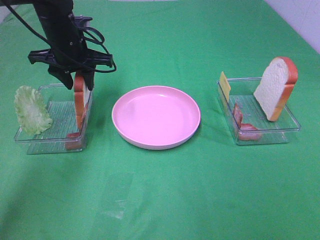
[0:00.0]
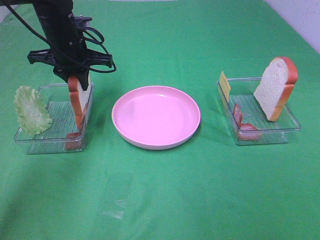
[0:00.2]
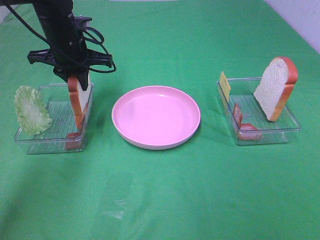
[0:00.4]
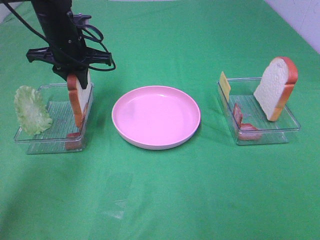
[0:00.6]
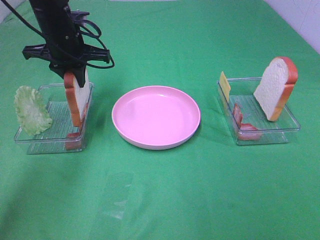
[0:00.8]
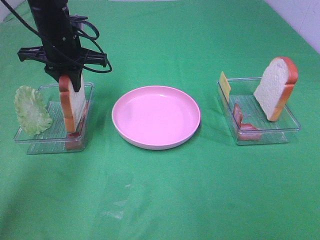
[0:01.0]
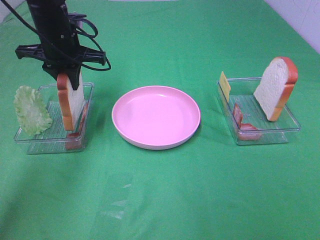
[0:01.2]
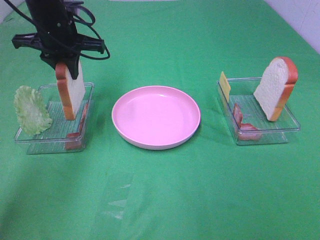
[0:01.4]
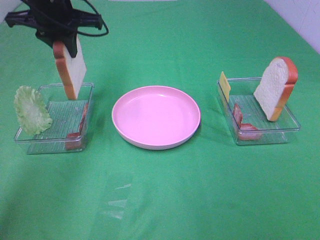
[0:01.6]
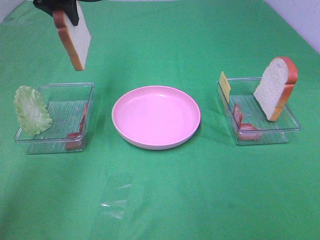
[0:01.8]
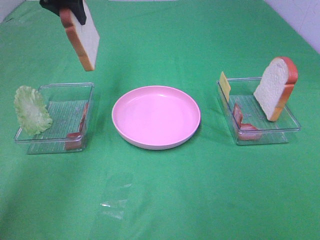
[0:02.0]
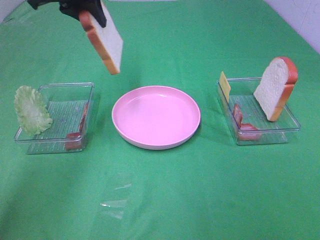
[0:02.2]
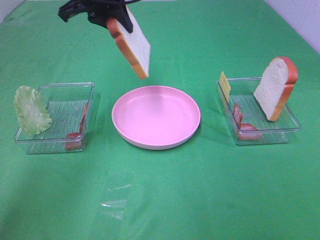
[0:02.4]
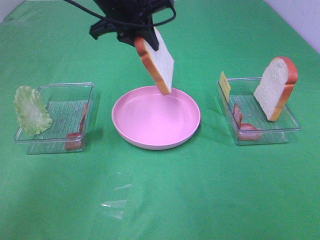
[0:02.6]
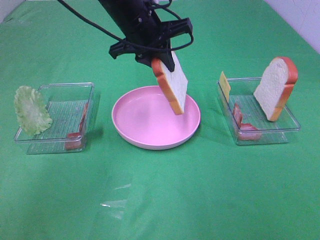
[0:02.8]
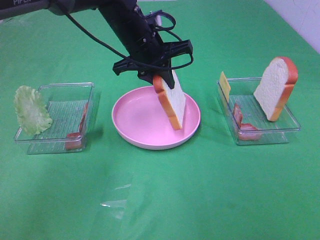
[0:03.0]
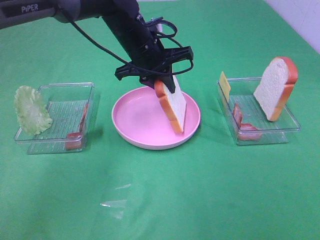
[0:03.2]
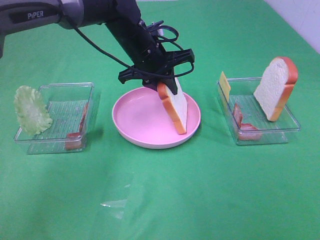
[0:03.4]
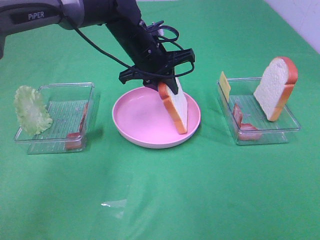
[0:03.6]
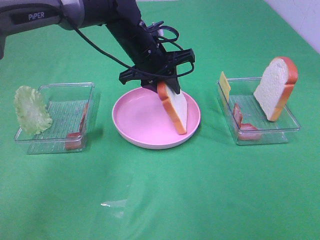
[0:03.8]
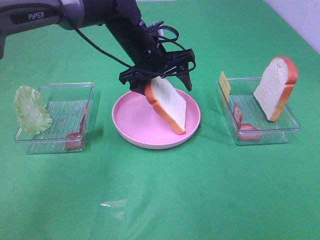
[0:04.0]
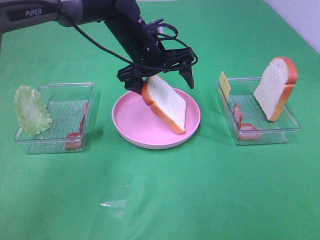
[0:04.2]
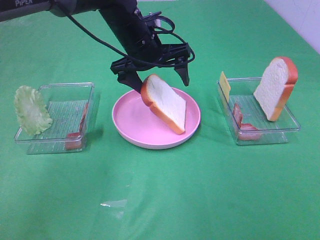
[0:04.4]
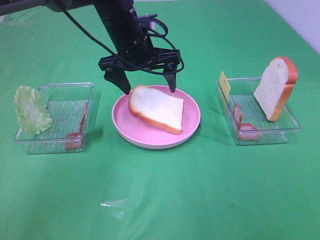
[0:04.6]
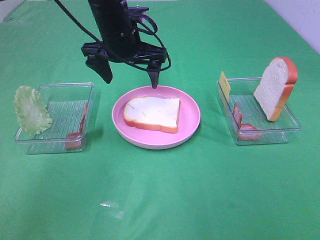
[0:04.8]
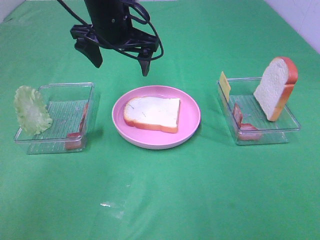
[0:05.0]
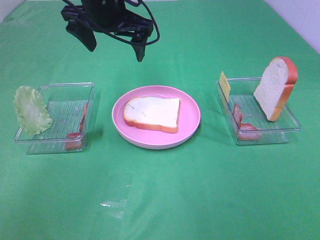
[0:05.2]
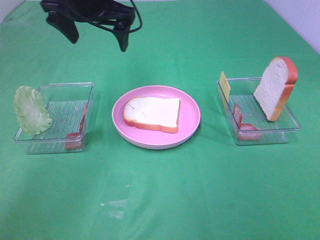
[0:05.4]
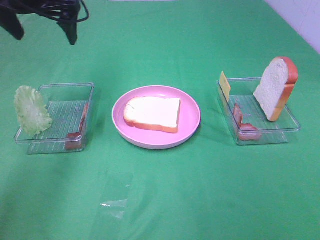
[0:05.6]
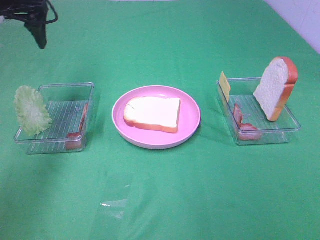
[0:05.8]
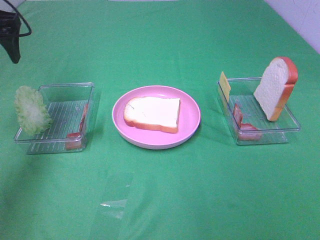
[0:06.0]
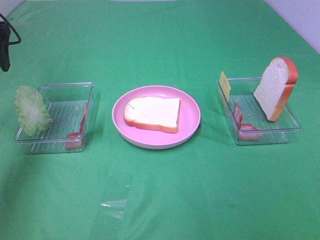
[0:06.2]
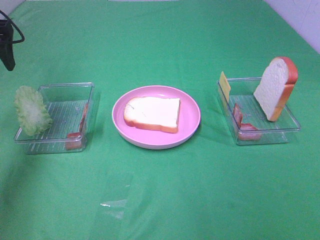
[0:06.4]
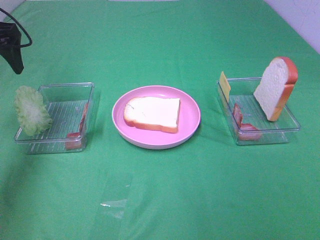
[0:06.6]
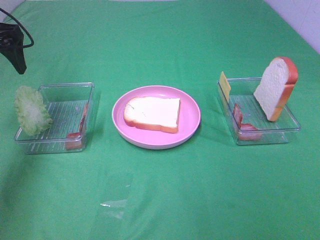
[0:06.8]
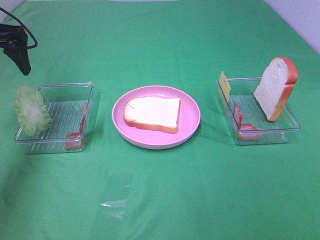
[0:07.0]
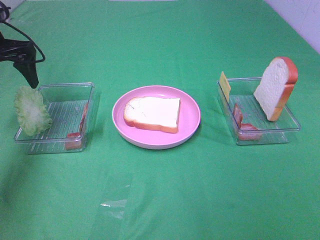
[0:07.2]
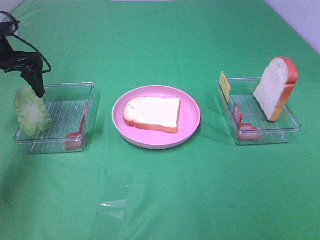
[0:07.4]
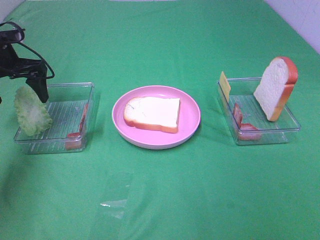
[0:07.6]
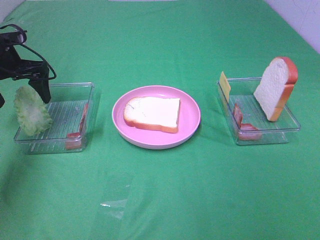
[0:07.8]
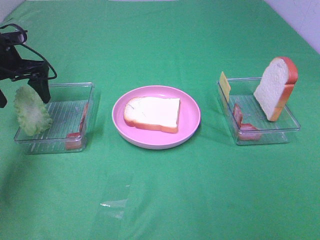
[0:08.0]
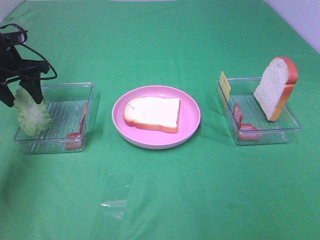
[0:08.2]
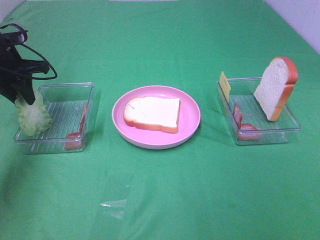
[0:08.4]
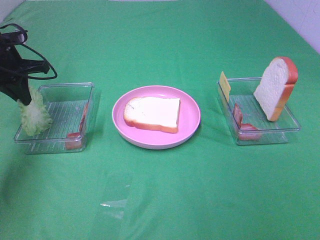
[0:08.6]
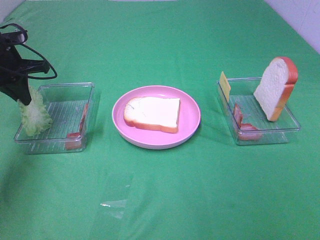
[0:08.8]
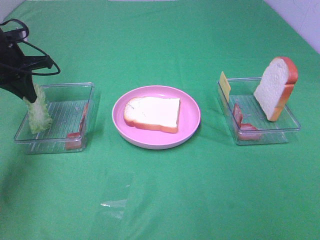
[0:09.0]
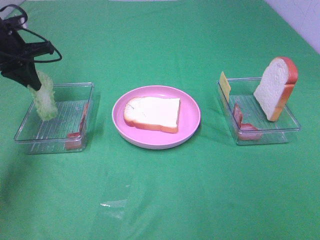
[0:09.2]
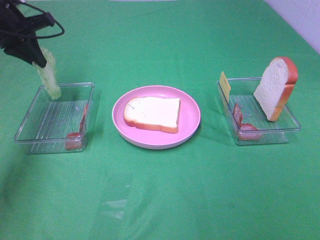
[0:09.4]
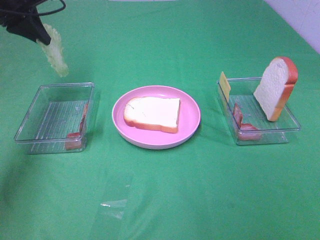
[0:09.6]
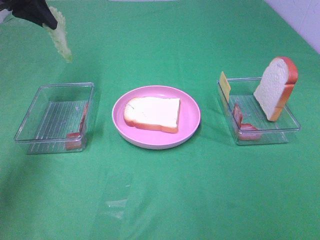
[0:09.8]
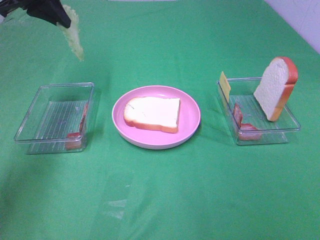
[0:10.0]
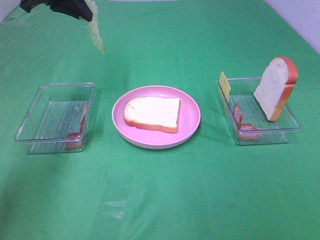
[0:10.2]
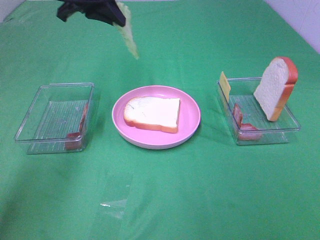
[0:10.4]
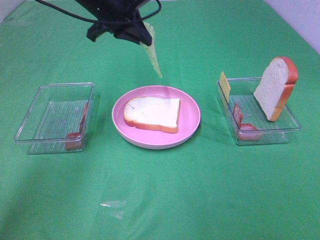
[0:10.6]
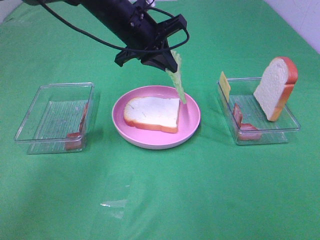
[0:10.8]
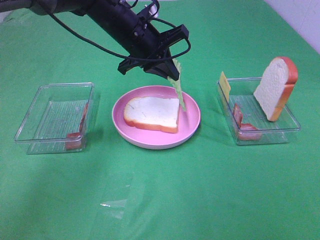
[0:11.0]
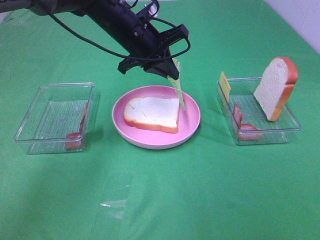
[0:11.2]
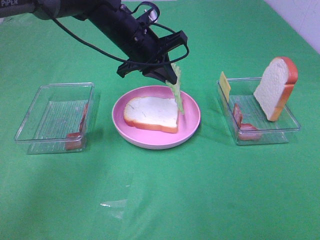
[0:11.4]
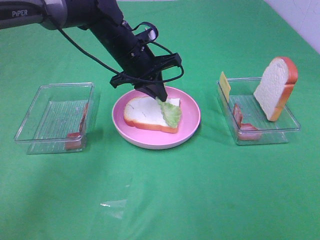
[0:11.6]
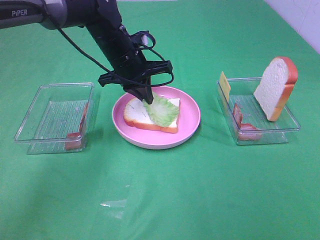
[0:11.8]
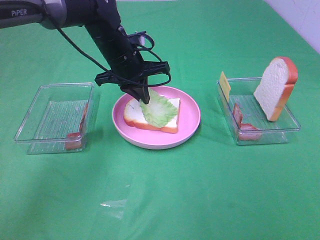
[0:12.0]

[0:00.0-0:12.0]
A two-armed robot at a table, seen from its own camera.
Task of the whole recording: Make sandwiches.
Step, 0:00.4 to 0:04.6: Left hand:place the bread slice on the plate.
Step, 0:04.8 to 0:08.6: Left hand:grab the lettuce slice.
0:00.0 to 0:01.6: The left gripper goes approximately 10 cm upward.
0:01.6 to 0:03.0: The left gripper is displaced to the right and downward by about 15 cm.
0:03.0 to 0:04.4: The left gripper opens up.
0:04.4 to 0:06.0: The left gripper is displaced to the left by roughly 25 cm.
0:06.0 to 0:07.6: The left gripper goes roughly 10 cm downward.
0:07.6 to 0:09.0: The left gripper closes its fingers.
0:09.0 to 0:10.4: The left gripper is displaced to the right and upward by approximately 20 cm.
0:10.4 to 0:12.0: The left gripper travels downward and to the right by roughly 15 cm.

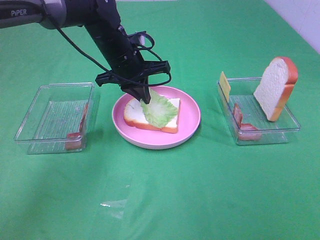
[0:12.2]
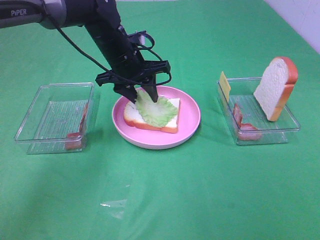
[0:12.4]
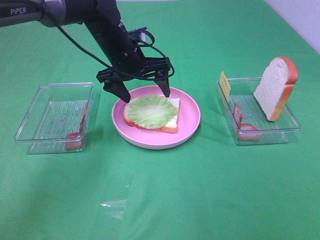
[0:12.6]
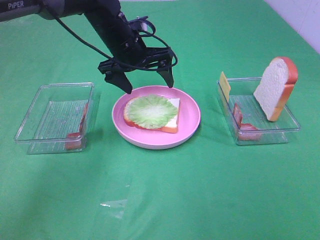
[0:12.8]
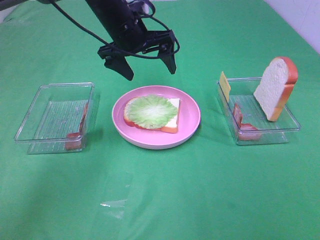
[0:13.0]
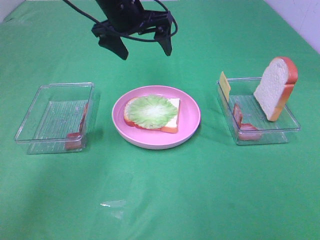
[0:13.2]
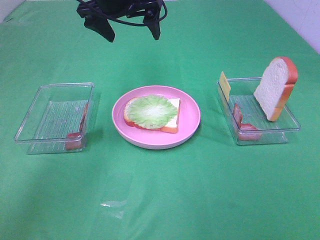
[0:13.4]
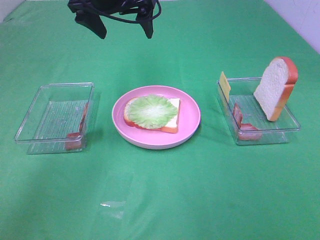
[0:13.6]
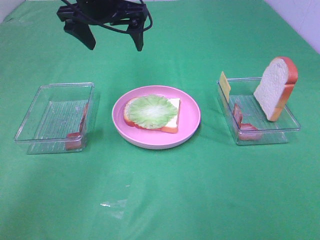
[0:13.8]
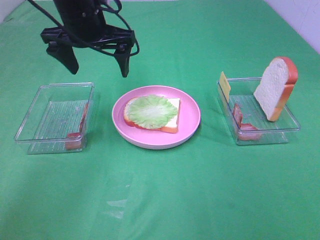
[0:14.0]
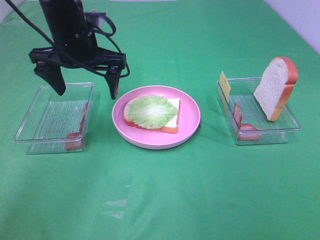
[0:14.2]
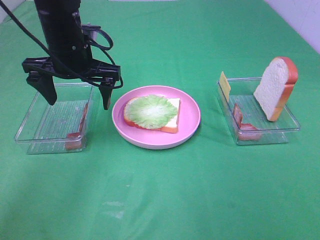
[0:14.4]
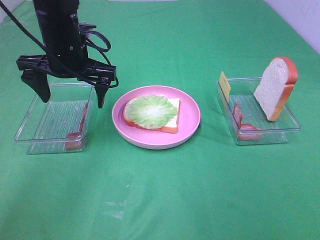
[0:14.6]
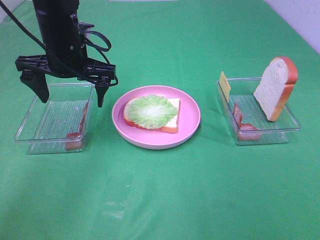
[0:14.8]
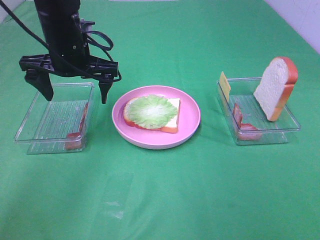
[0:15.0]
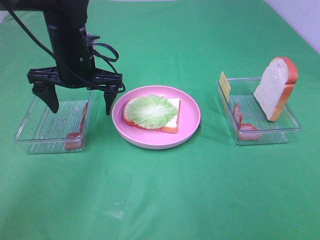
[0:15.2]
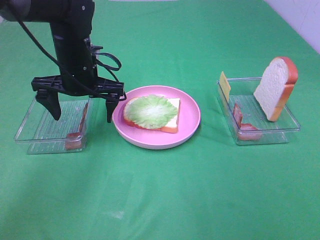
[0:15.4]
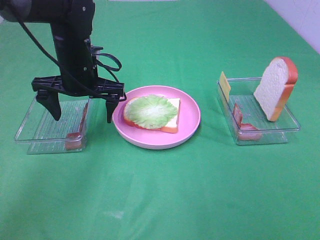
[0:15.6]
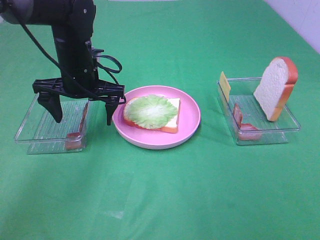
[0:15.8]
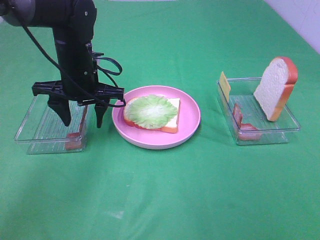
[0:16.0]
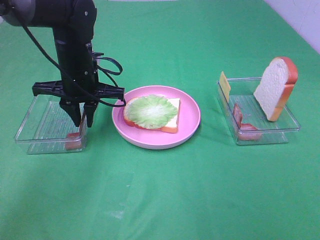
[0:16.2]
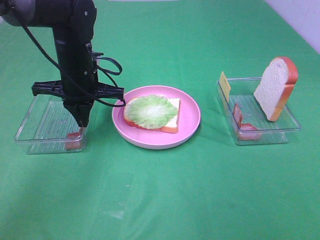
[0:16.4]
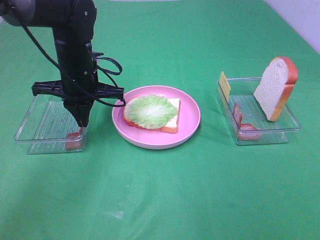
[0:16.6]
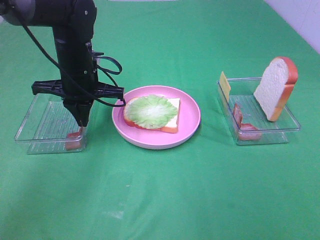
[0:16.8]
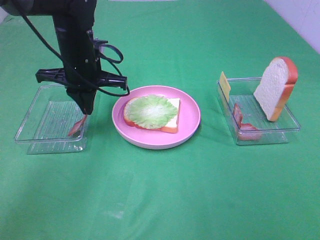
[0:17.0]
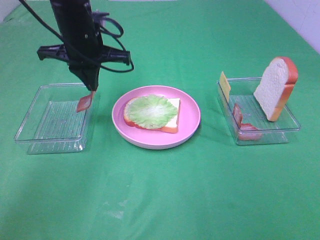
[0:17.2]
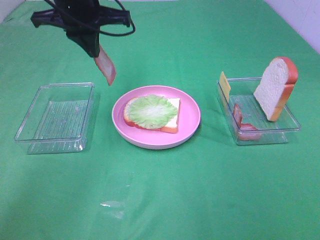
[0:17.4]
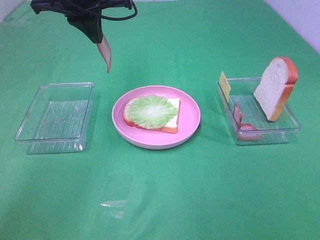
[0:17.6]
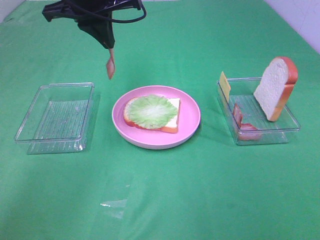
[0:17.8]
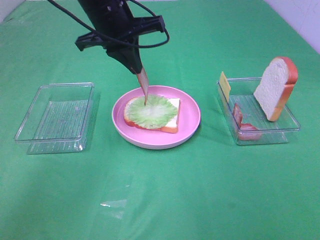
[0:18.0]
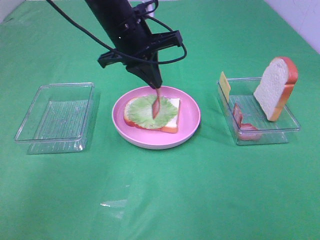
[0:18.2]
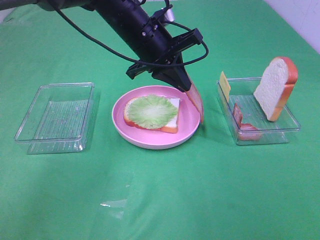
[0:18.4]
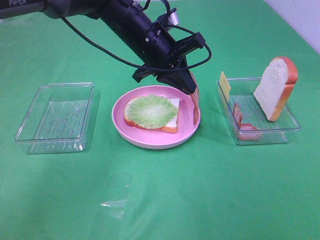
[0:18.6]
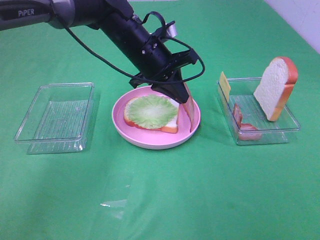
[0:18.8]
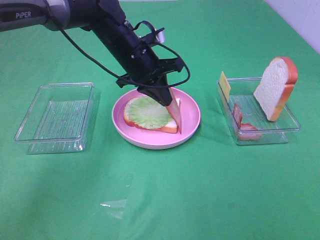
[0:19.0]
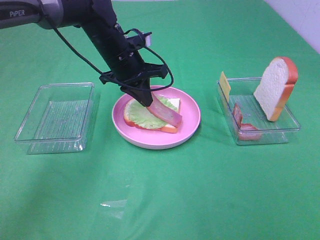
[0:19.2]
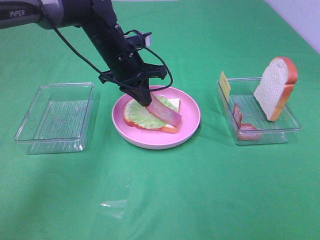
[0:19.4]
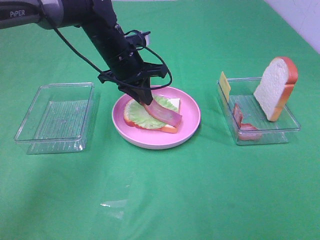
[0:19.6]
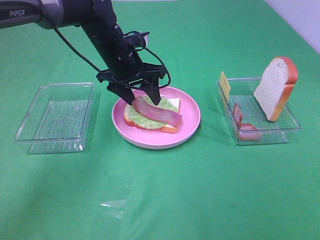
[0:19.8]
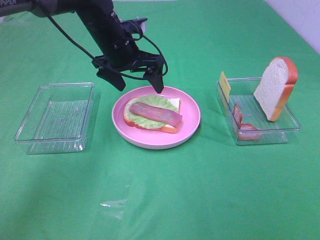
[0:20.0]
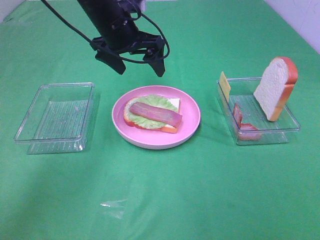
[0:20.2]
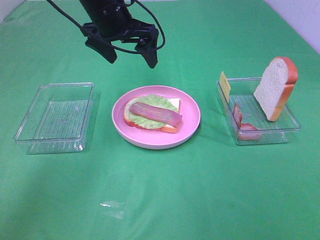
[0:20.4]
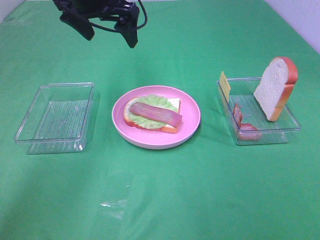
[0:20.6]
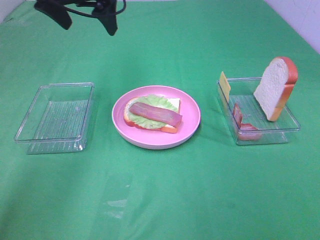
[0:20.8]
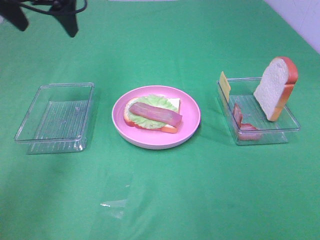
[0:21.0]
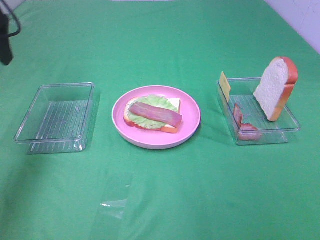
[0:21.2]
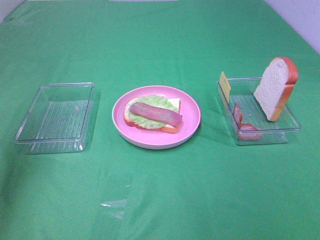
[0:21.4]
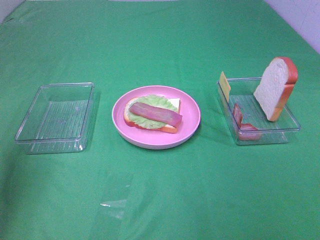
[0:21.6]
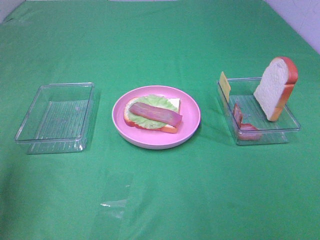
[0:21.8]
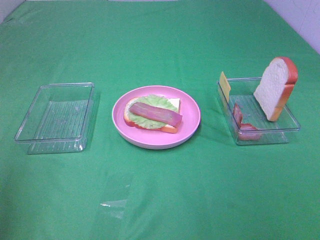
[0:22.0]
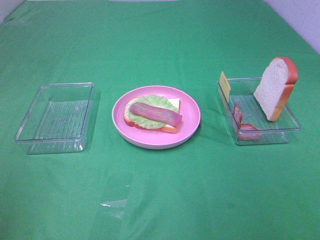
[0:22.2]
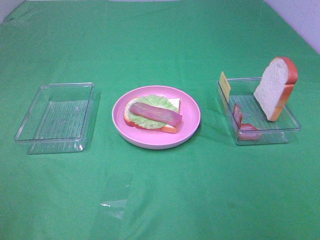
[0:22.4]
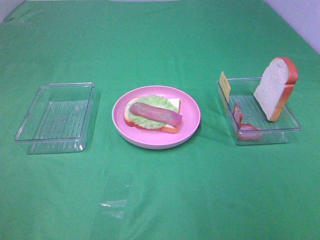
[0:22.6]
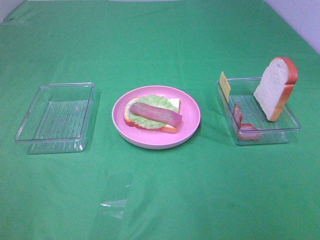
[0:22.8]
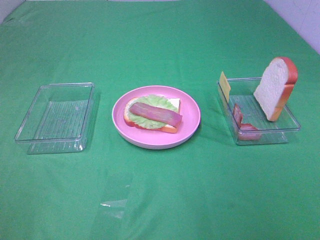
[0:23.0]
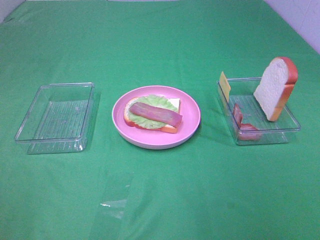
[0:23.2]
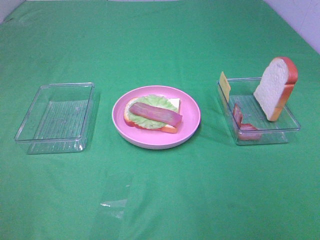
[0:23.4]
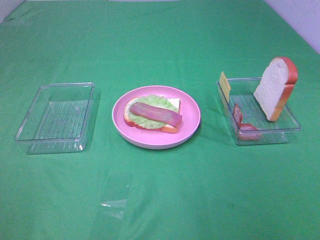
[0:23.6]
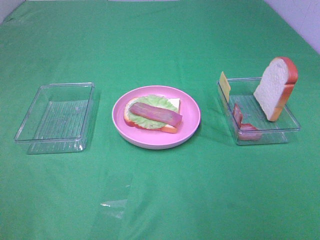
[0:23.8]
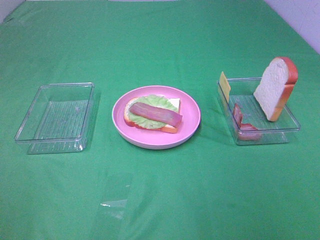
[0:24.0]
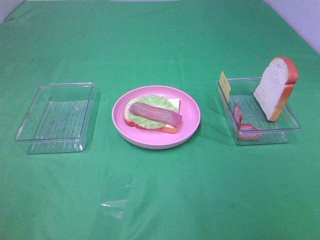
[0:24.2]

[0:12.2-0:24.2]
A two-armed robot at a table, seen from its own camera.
Task of the whole recording: Make sandwiches.
Step, 0:13.0 to 0:17.0: Left hand:grab the bacon.
Step, 0:17.2 to 0:20.2: Left hand:place bacon on lettuce slice.
0:12.2 to 0:13.8: The left gripper travels upward by some 10 cm, and opens up.
0:13.8 to 0:15.2: The left gripper moves downward, some 10 cm.
0:15.2 to 0:16.6: The left gripper closes its fingers.
0:16.6 to 0:18.2: The left gripper goes some 10 cm to the right and upward.
0:18.2 to 0:19.8: The left gripper goes about 5 cm downward, and opens its fingers.
0:19.8 to 0:21.2: The left gripper heads to the left, upward and backward, covering about 30 cm.
0:21.2 to 0:22.6: The left gripper shifts roughly 35 cm backward.
0:22.6 to 0:24.2: Both grippers stay about where they are.
